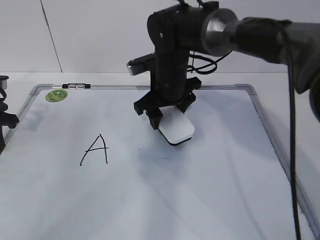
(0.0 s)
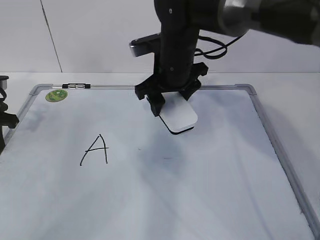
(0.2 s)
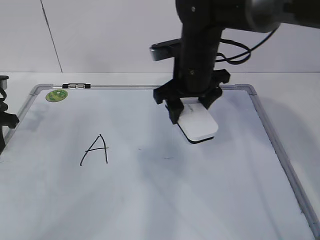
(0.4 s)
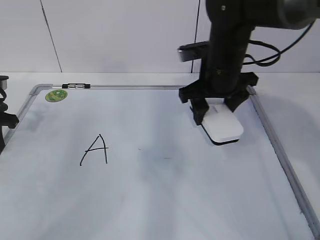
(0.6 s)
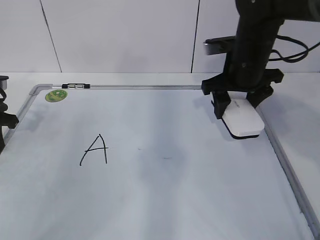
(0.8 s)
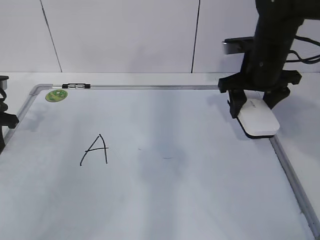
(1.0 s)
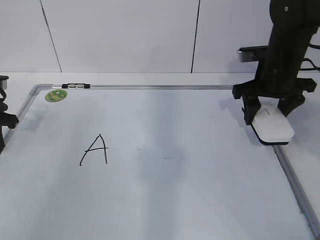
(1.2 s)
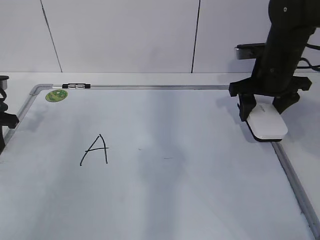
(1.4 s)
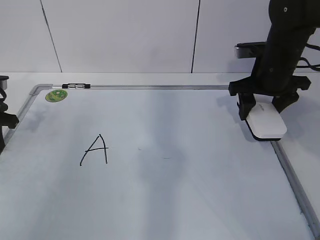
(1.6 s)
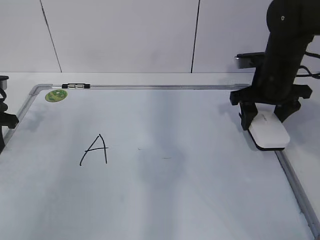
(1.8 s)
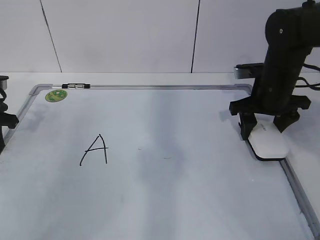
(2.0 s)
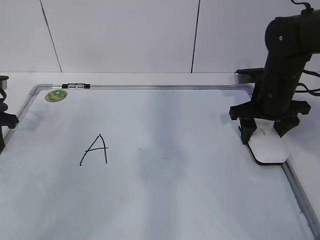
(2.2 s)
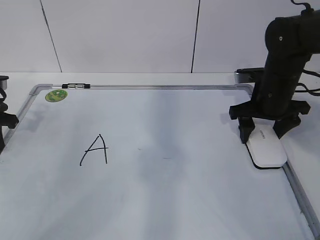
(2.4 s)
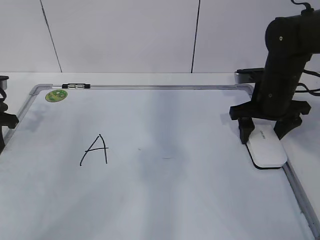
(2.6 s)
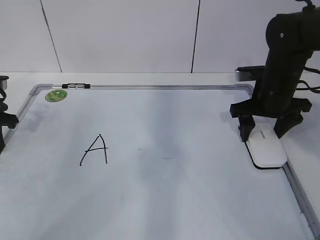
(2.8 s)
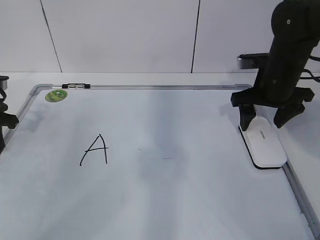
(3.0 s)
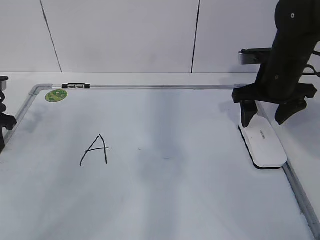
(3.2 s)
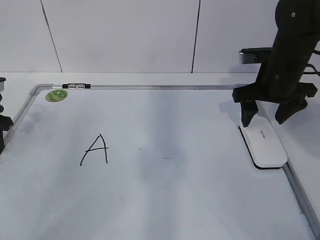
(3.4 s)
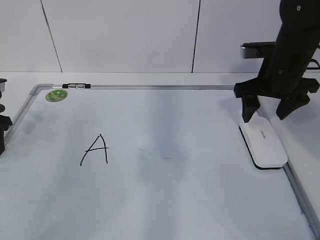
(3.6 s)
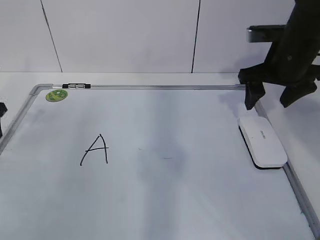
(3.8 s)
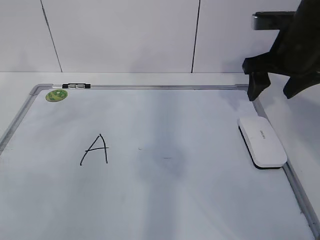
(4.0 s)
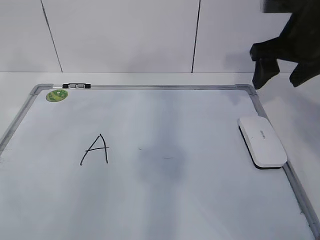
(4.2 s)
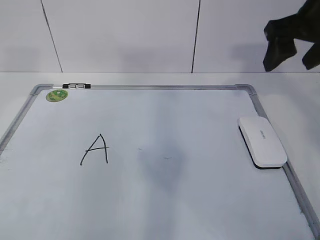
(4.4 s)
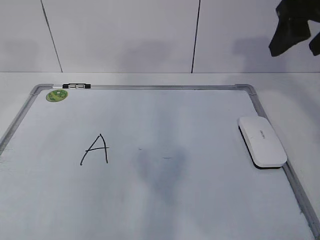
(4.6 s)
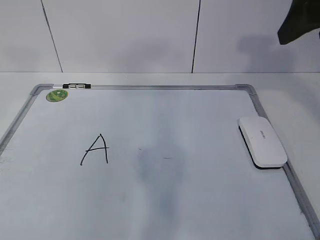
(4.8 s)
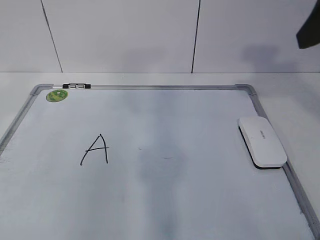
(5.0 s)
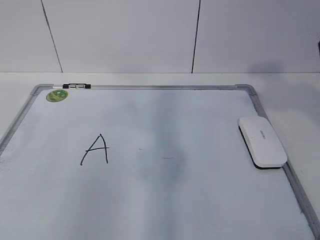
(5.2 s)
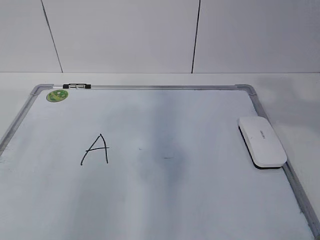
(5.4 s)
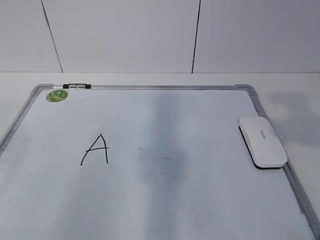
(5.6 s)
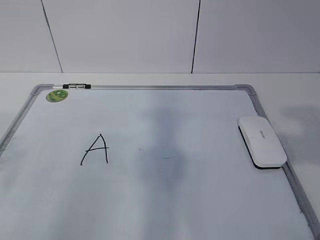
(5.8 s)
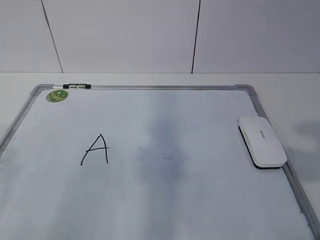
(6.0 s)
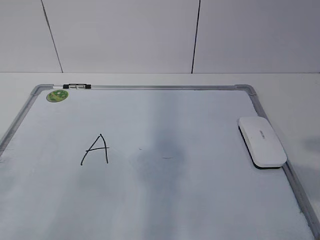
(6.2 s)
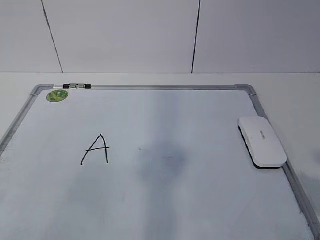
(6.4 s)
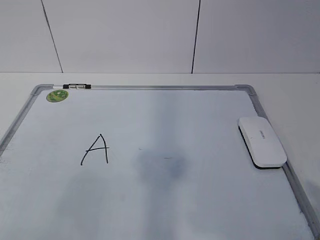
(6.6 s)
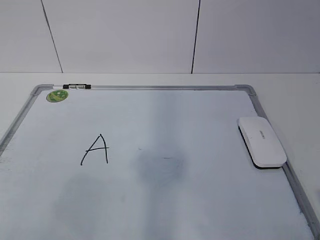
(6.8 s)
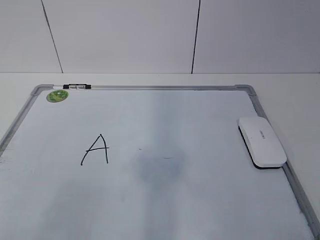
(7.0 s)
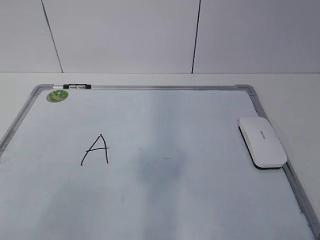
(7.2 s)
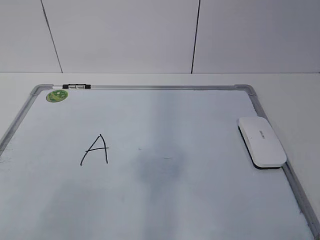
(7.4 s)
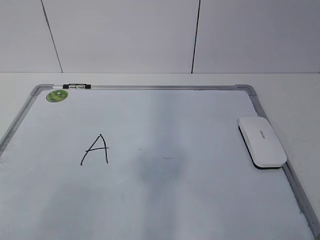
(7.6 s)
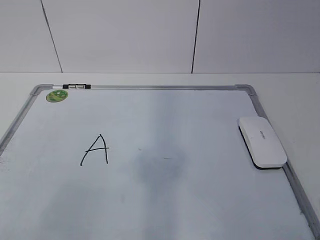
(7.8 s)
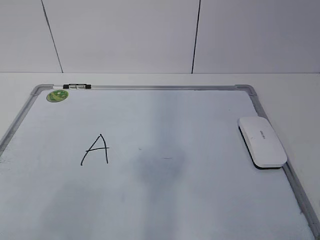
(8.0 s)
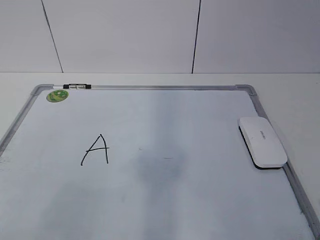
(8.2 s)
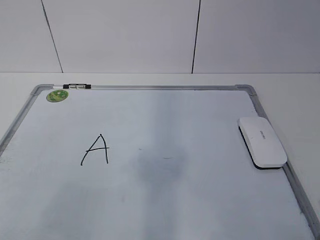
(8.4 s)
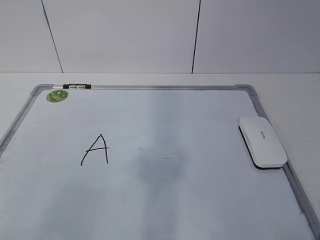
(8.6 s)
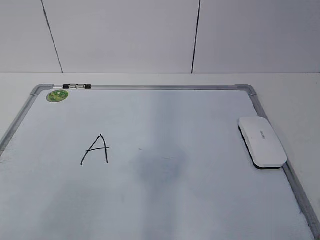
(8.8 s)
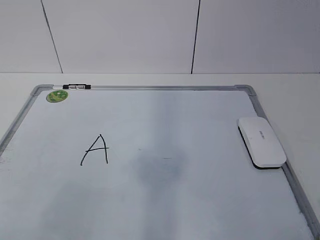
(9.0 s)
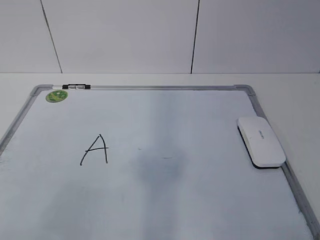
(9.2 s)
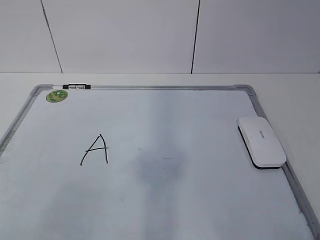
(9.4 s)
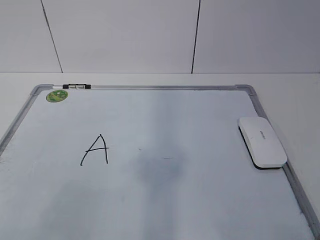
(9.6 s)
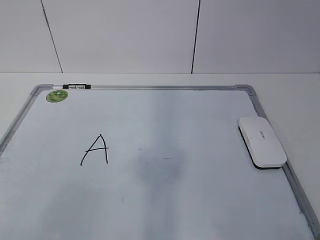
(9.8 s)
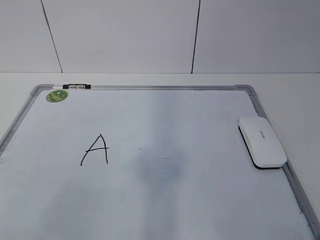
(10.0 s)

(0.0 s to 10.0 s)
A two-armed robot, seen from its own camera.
Task of the whole recording: pick up the eraser on the blackboard and erase the letter "a".
0.0 s - 1.4 s: The right gripper travels to the right by approximately 20 cm.
1.4 s - 2.8 s: The right gripper opens its fingers.
2.8 s - 4.2 s: Both grippers travel together upward, approximately 15 cm. The left gripper opens.
4.2 s - 5.8 s: The right gripper goes about 25 cm backward.
7.2 s - 8.6 s: Both grippers stay put.
